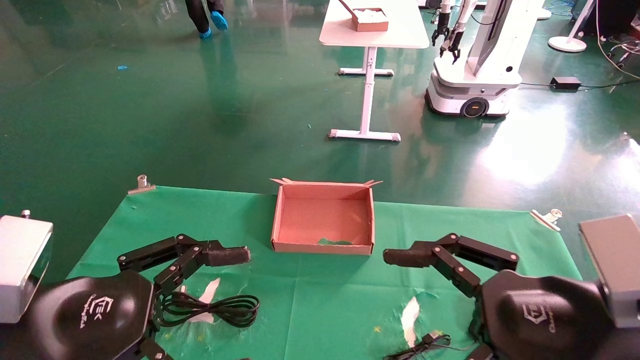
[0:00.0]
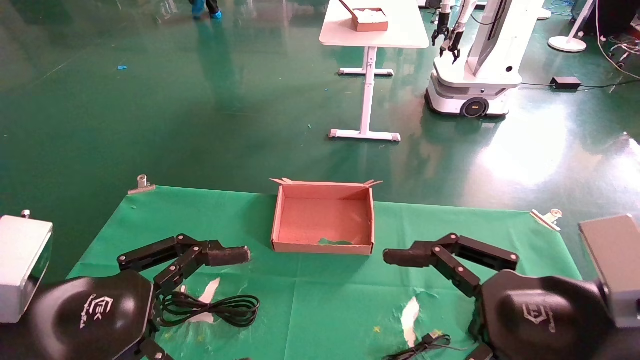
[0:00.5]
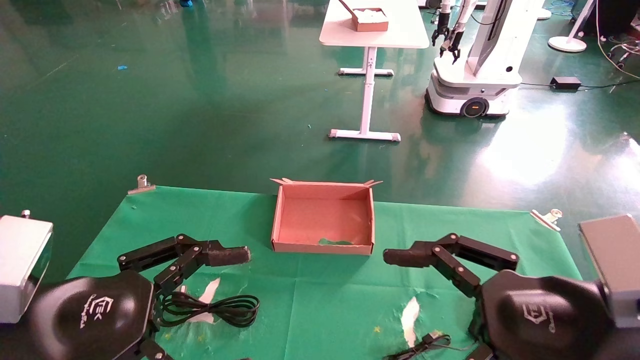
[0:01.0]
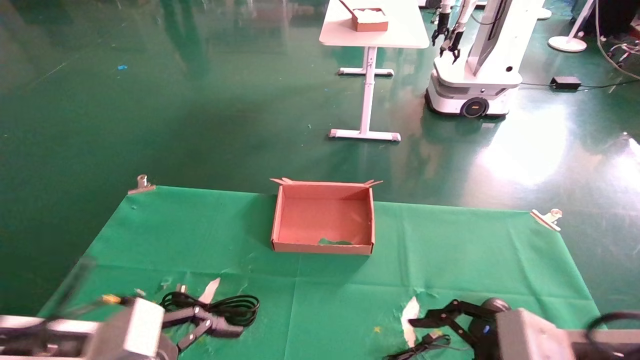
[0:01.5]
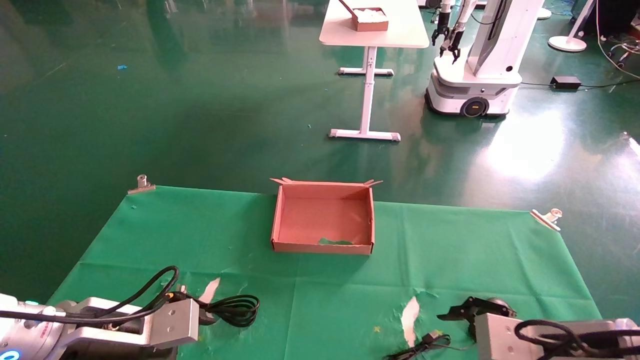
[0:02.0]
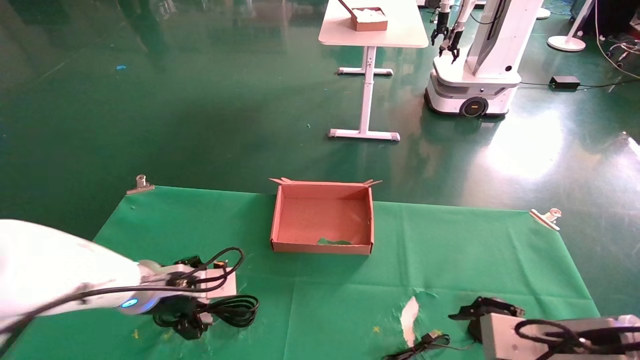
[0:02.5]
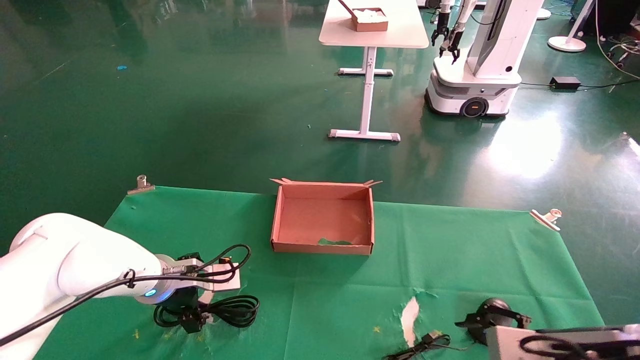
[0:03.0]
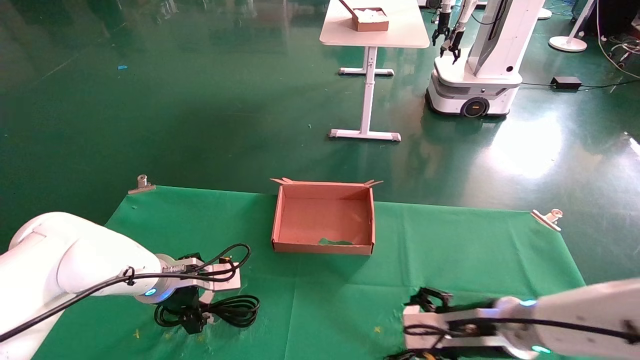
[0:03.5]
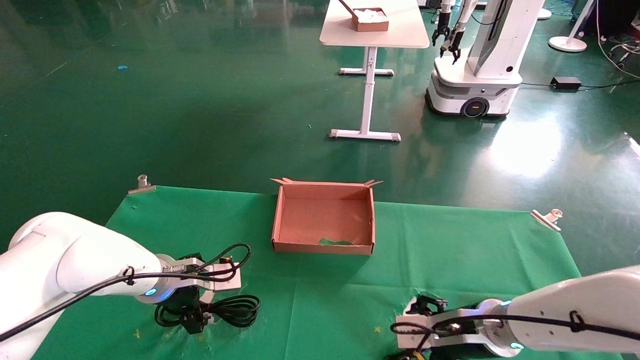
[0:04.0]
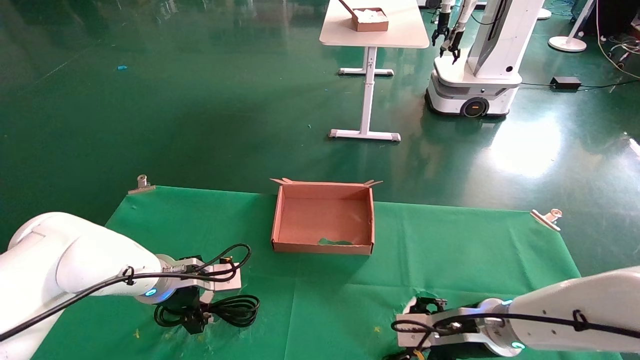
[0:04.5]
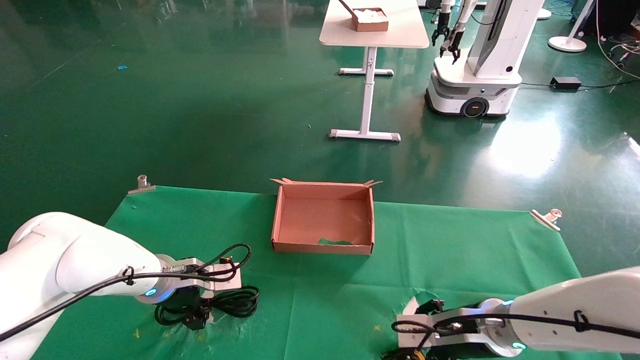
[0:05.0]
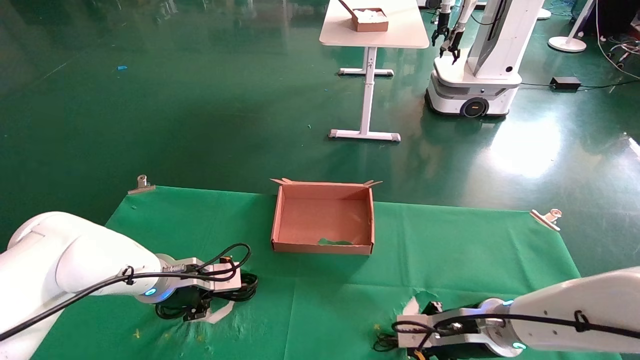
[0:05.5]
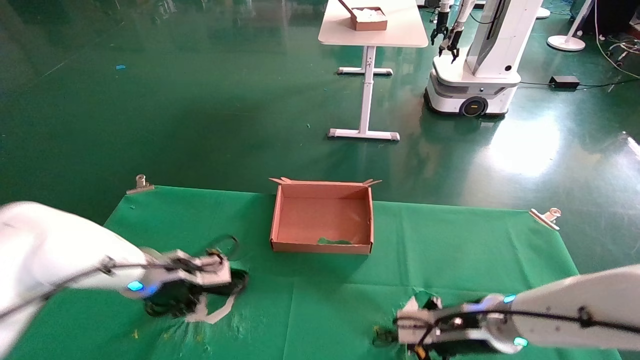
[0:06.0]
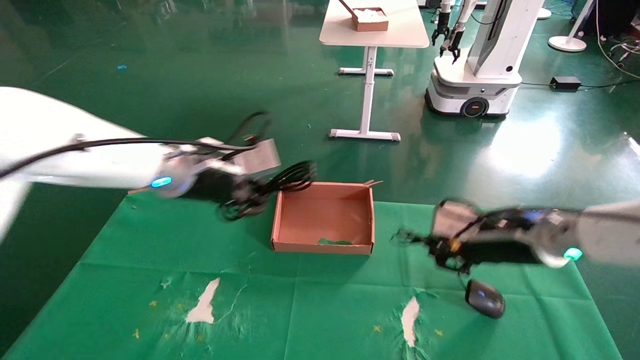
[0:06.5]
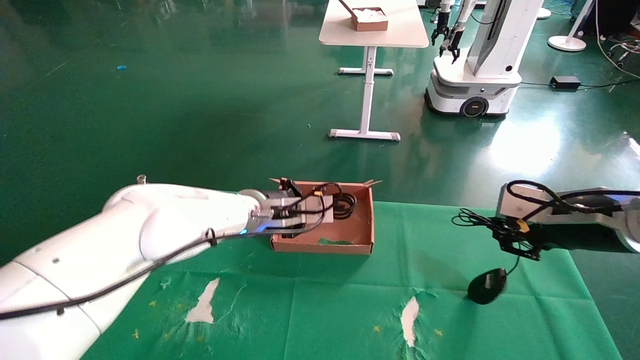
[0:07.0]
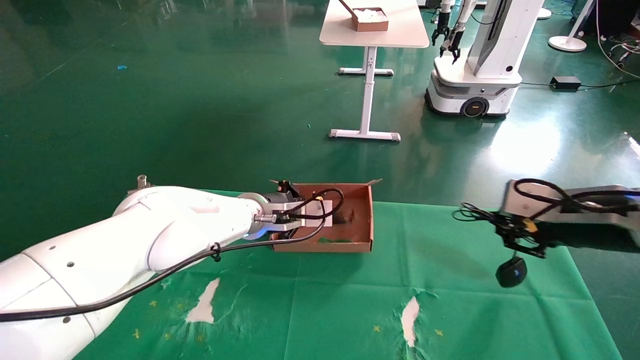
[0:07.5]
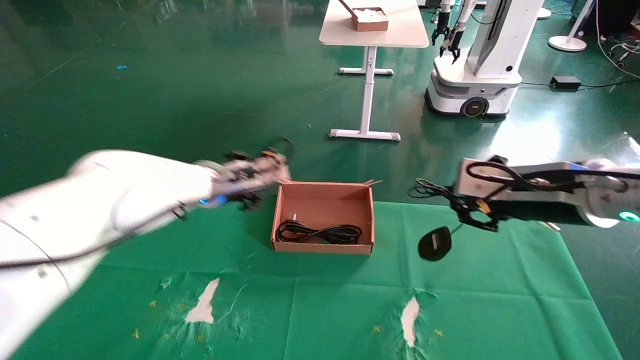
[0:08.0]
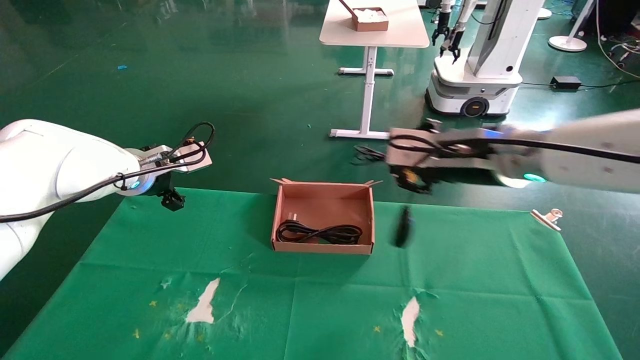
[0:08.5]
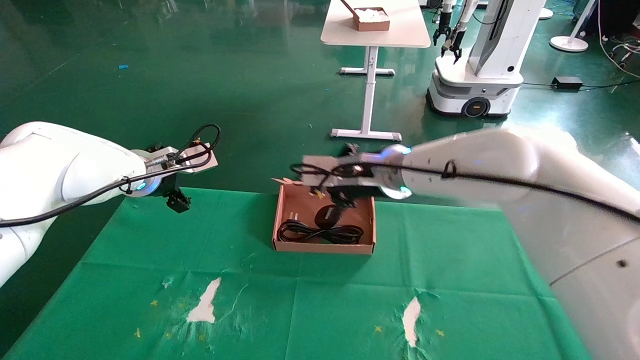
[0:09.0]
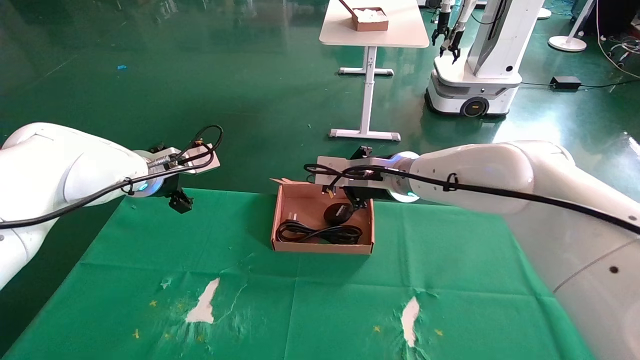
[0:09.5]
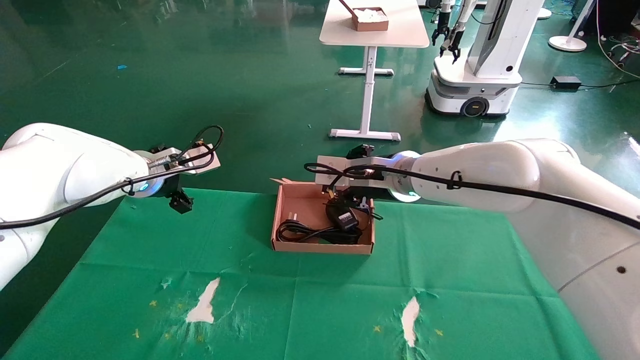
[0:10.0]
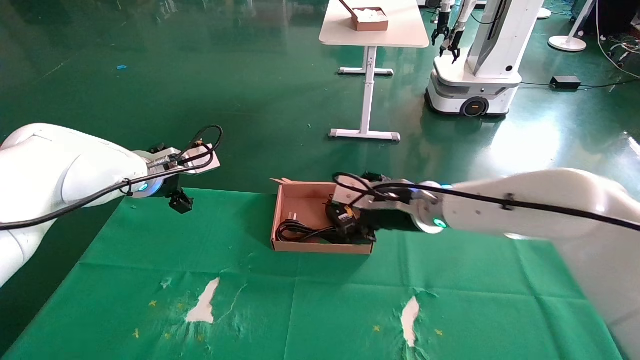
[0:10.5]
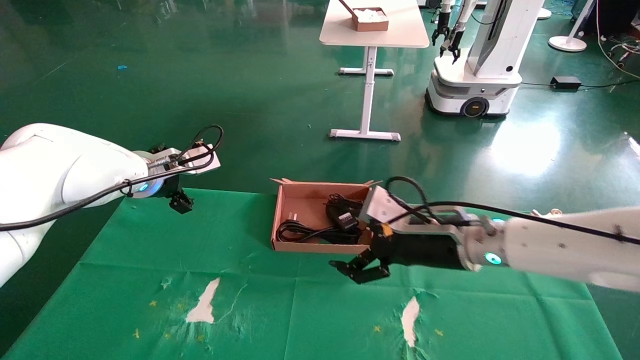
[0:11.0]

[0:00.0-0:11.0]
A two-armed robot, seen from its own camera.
Step, 0:02.0 to 0:06.0: Grab and lift both the mouse and power cord from the accessory packaging area at the same time.
0:00.0 to 0:02.0: The left gripper travels forward and downward by some 15 cm. The right gripper shifts roughly 10 cm downward and forward.
0:02.0 to 0:03.5: The left gripper goes roughly 15 cm forward. The right gripper heads forward and to the left, covering some 10 cm.
0:03.5 to 0:05.5: The left gripper closes up. The right gripper closes up.
0:05.5 to 0:07.5: The right gripper travels upward and to the right by some 20 cm. The left gripper shifts about 15 cm to the right and upward.
0:07.5 to 0:09.0: The left gripper travels to the left by roughly 15 cm, and opens. The right gripper travels to the left and forward by approximately 25 cm.
0:09.0 to 0:11.0: The right gripper heads downward, to the right and backward, covering roughly 15 cm, and opens up.

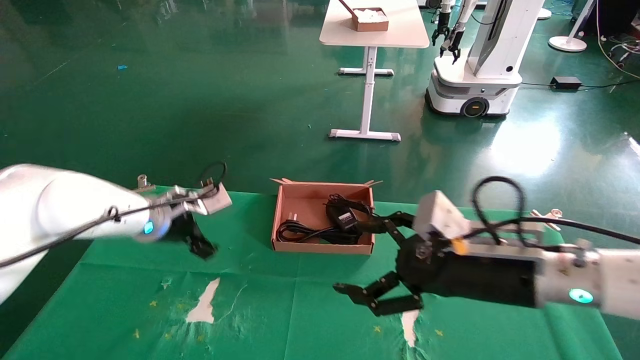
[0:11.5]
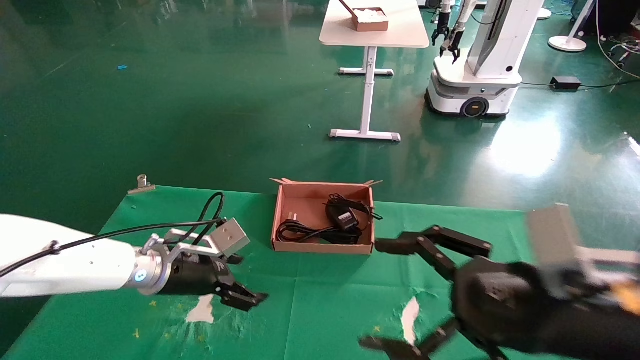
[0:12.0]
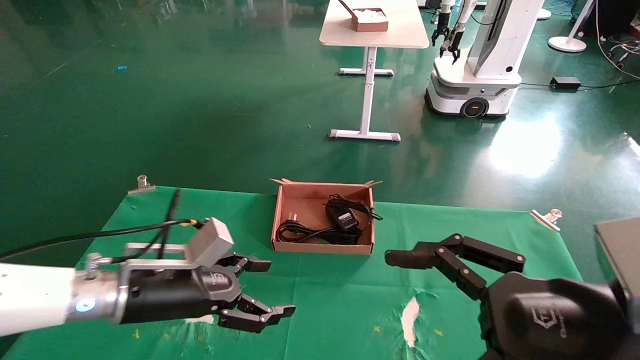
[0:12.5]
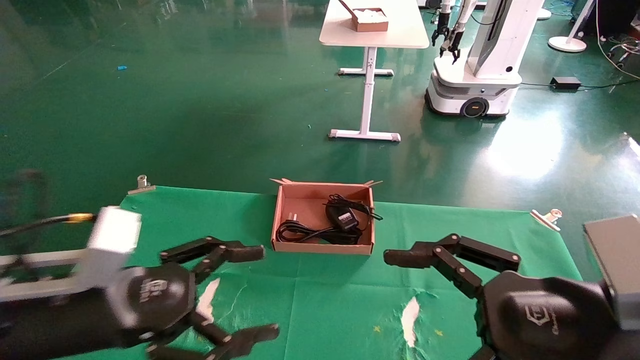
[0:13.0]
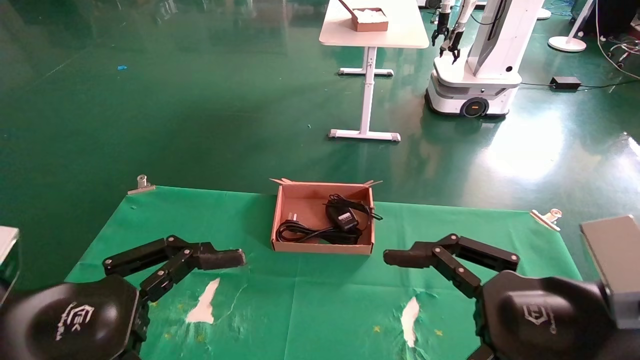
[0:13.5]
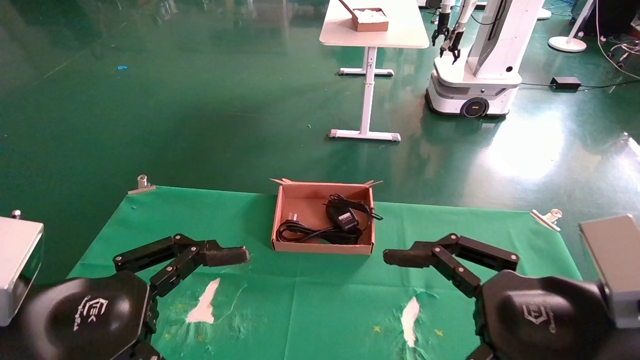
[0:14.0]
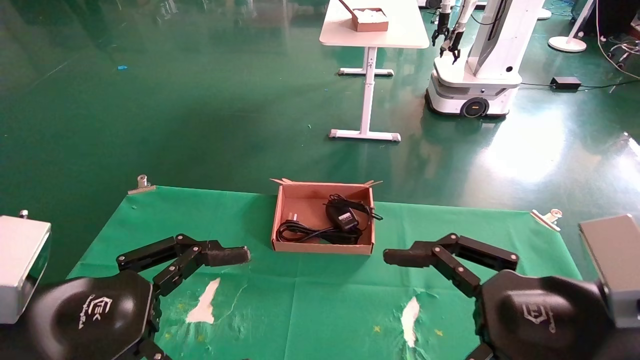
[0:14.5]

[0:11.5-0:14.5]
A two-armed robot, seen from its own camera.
0:11.5 to 0:13.0: The right gripper travels backward by about 10 cm. The left gripper is displaced backward by approximately 25 cm.
0:13.0 to 0:14.5: The grippers move only a little.
